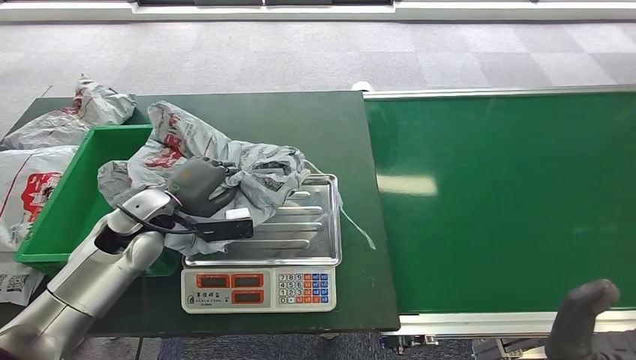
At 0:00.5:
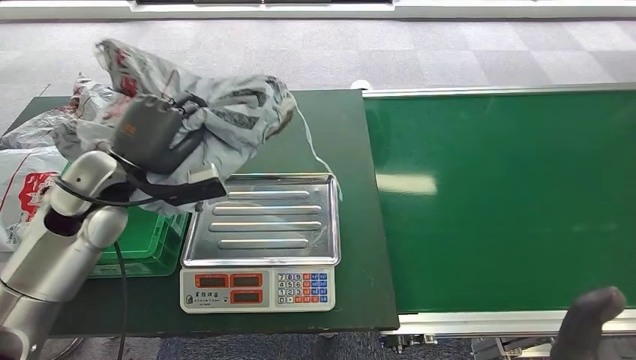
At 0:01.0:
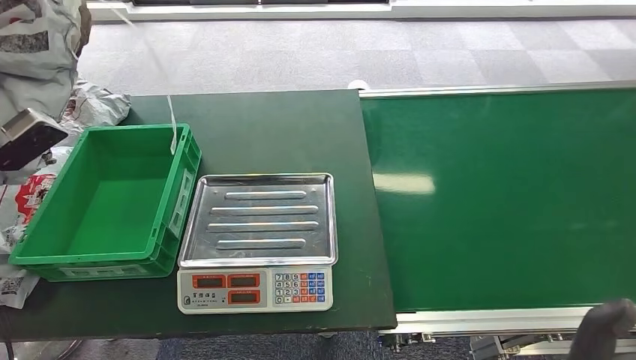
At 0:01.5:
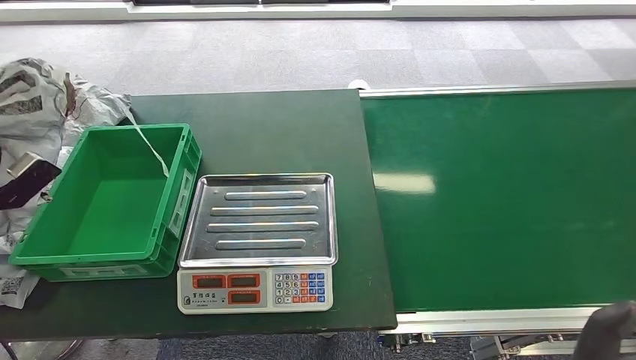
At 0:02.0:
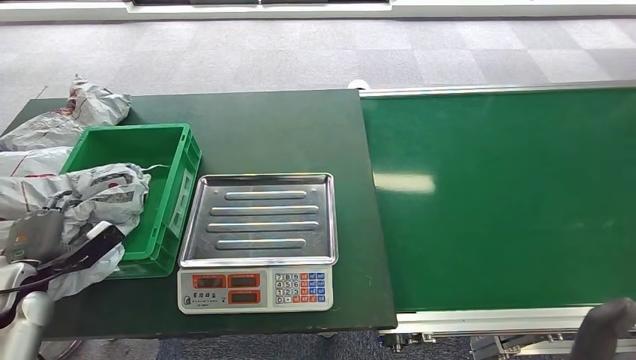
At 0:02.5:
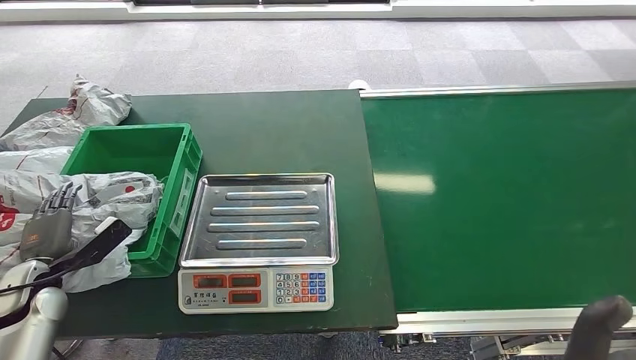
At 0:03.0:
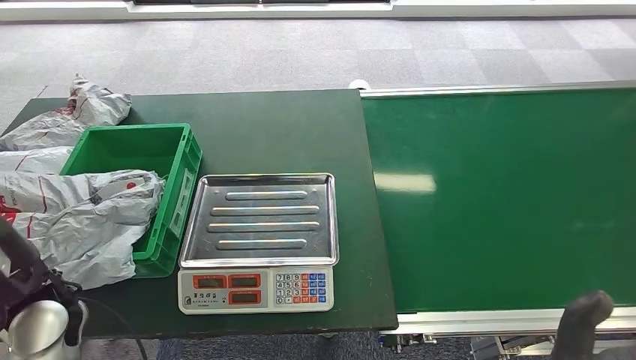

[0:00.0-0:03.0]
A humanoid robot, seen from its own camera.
Step, 0:01.0 to 0:03.0: Place the package into the parcel locker.
0:01.5 to 0:03.0: The left hand shifts roughly 15 cm to the right.

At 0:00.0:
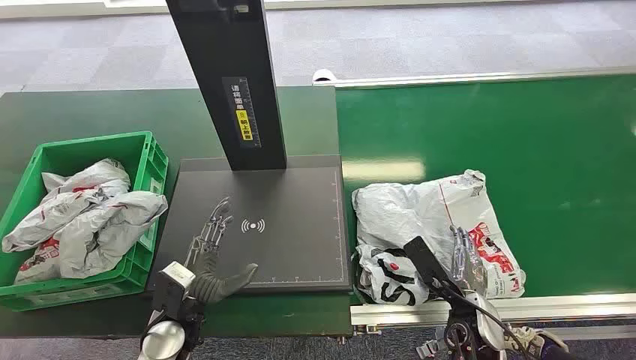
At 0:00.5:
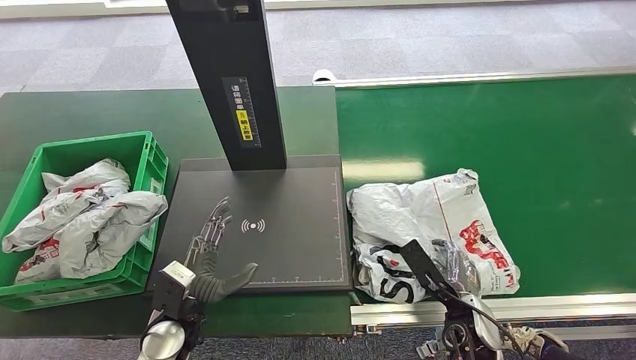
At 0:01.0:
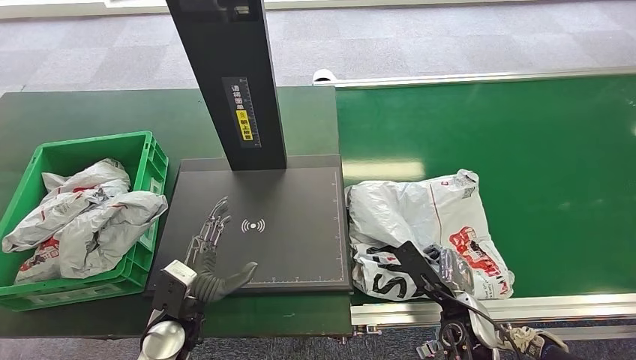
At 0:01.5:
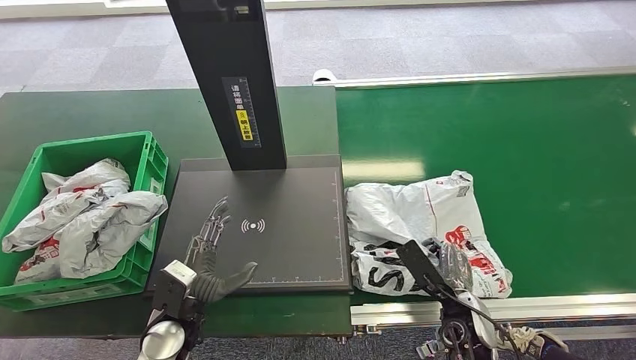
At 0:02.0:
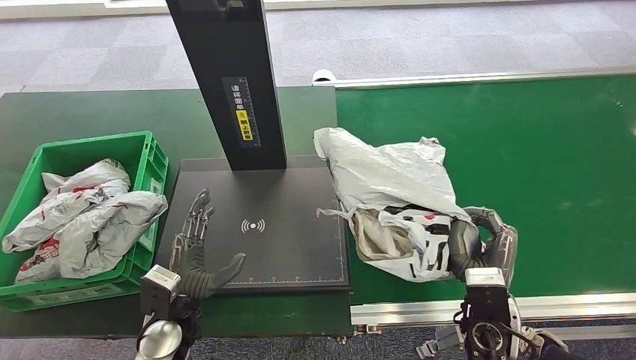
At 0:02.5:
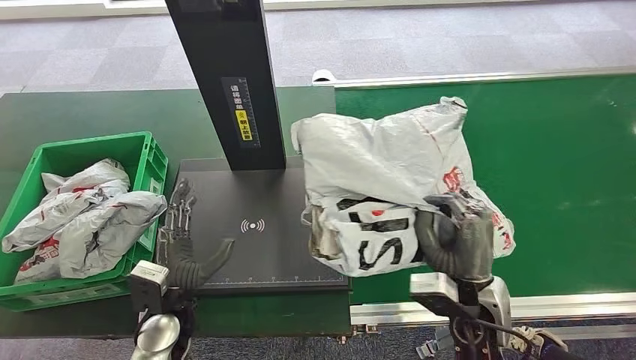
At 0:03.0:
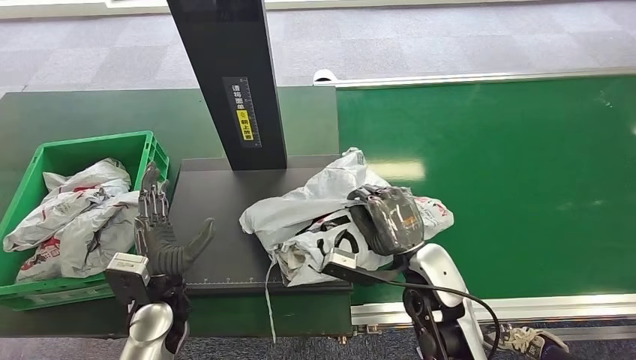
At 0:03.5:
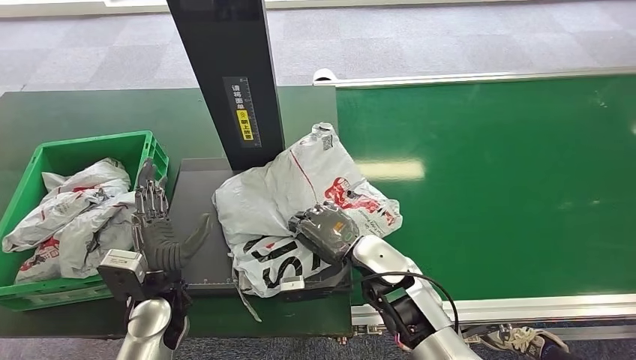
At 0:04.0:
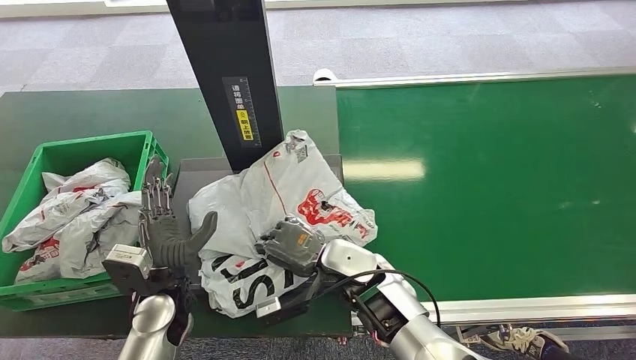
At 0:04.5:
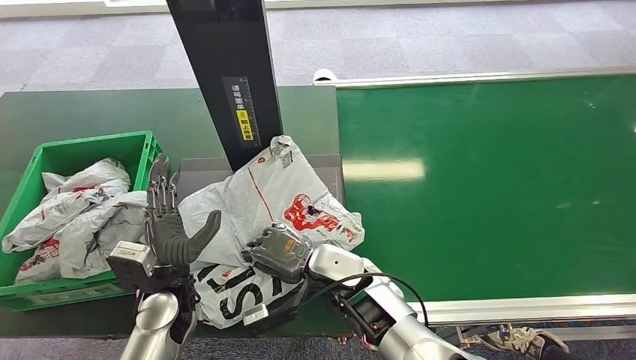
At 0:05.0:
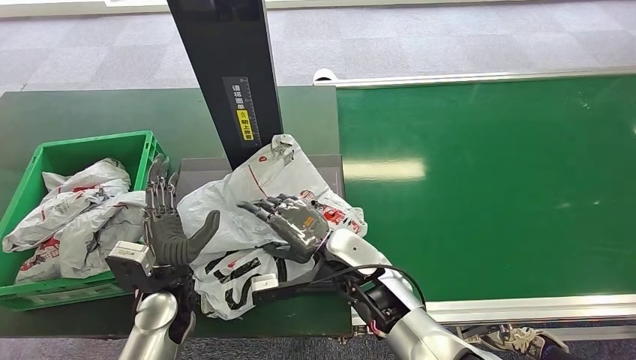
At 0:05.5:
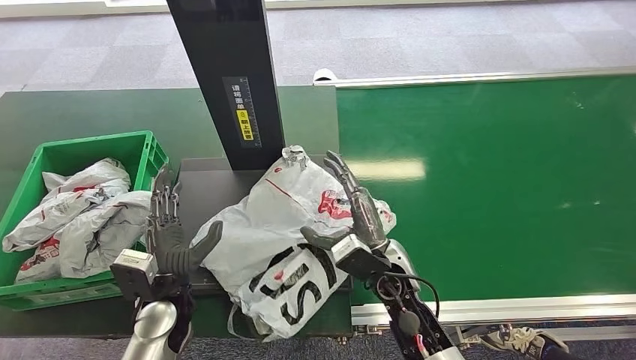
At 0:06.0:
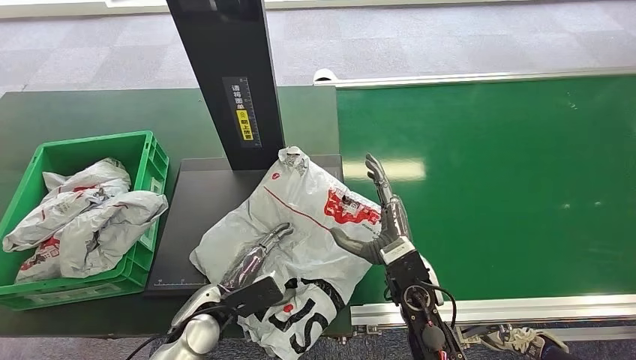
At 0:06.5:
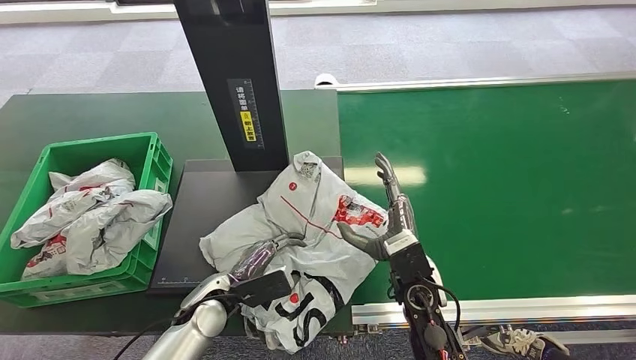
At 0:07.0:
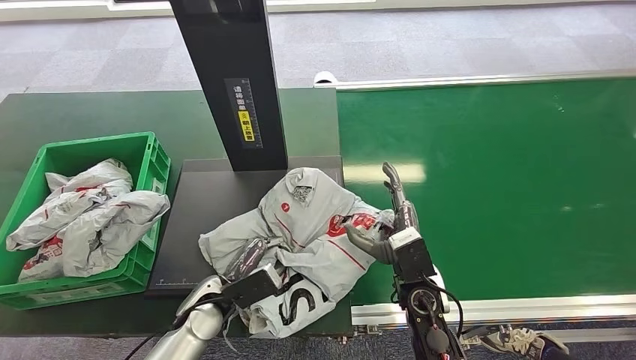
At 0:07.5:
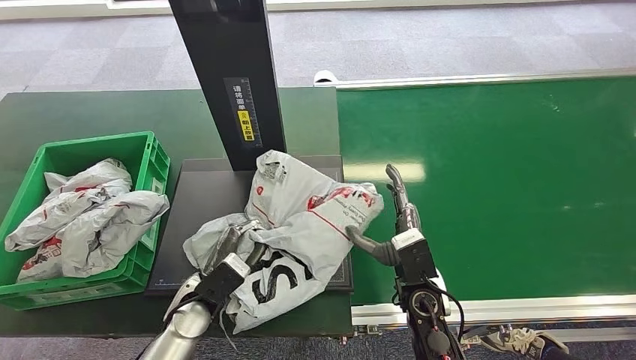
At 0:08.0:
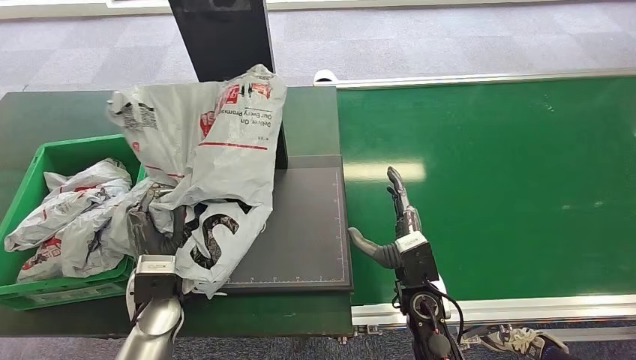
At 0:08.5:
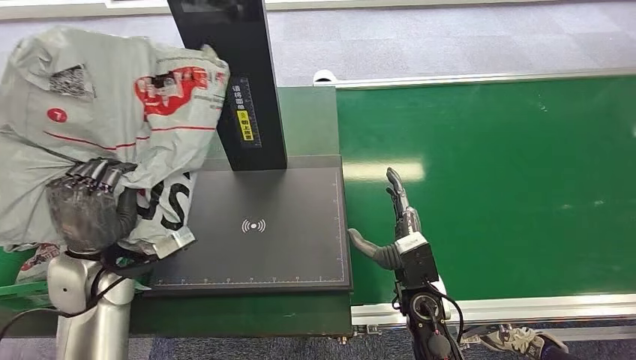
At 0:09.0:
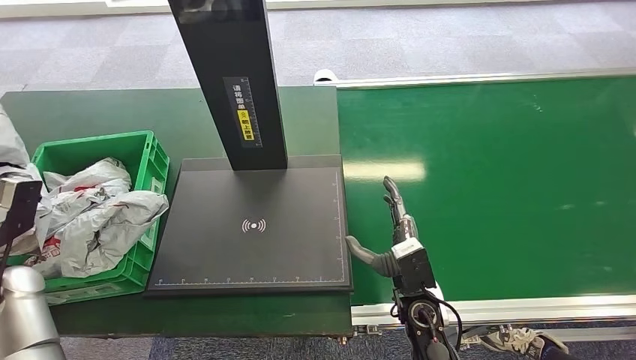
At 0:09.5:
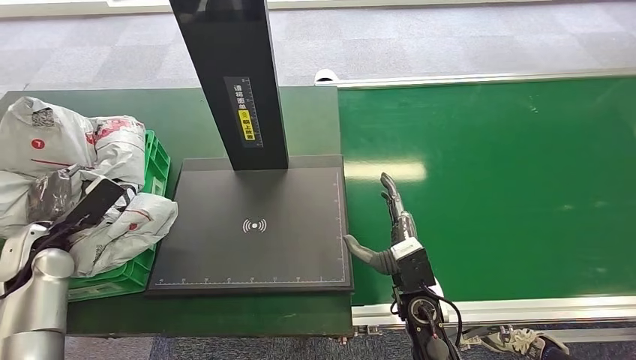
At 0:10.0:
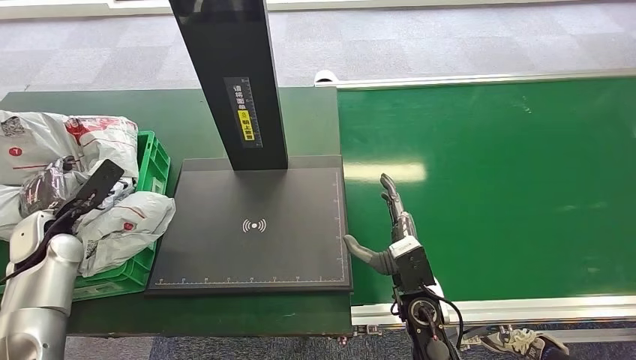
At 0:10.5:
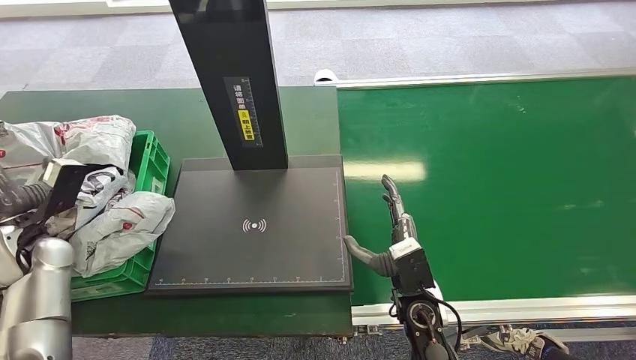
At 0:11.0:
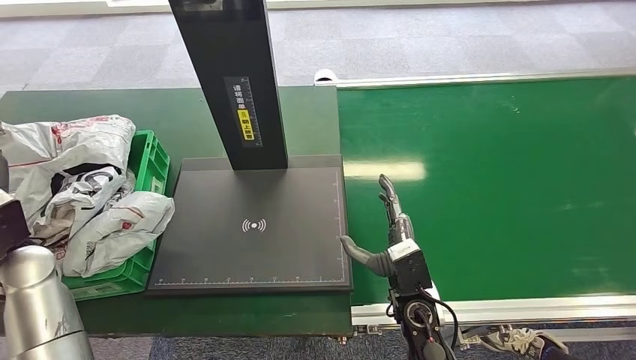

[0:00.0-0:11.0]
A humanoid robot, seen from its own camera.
Step, 0:00.0 to 0:02.5: Pick up the package from the conveyor belt.
Step, 0:03.0 to 0:06.5: Place the package onto the inbound machine.
Step, 0:07.0 to 0:07.5: Pick up the package from the inbound machine.
Step, 0:08.5 to 0:11.0: Place the package into the parcel locker.
0:05.5 to 0:07.5: The right hand moves roughly 5 cm.
0:07.5 to 0:09.0: The left hand travels to the left and upward by approximately 30 cm.
0:09.0 to 0:11.0: The left hand goes roughly 5 cm to the right.
